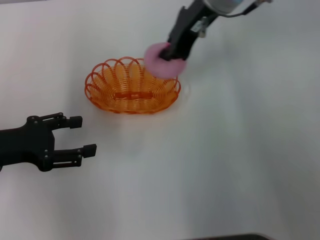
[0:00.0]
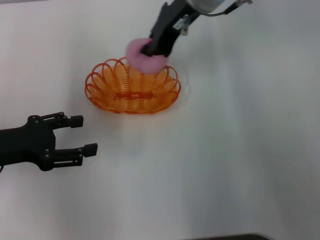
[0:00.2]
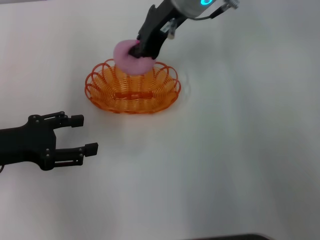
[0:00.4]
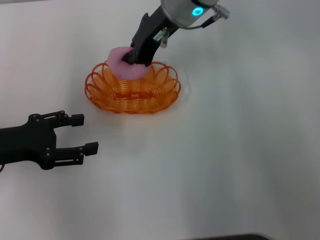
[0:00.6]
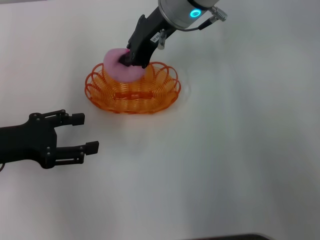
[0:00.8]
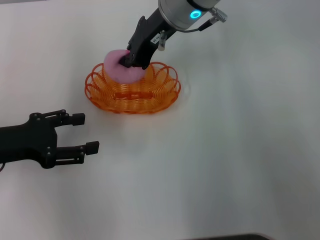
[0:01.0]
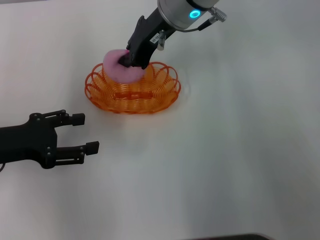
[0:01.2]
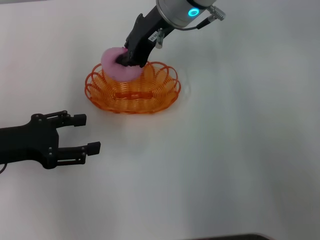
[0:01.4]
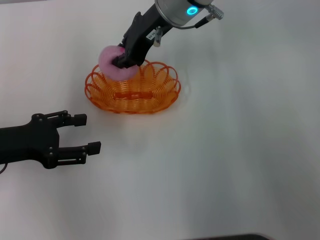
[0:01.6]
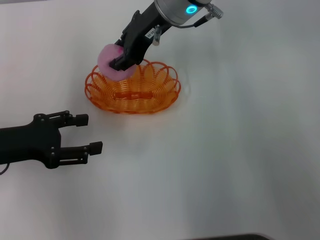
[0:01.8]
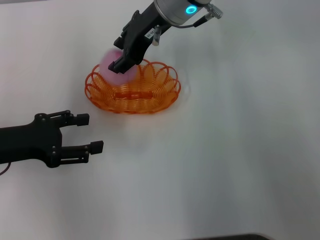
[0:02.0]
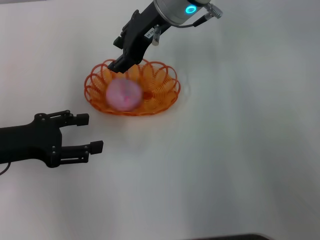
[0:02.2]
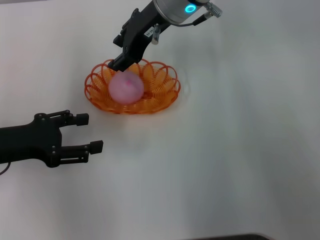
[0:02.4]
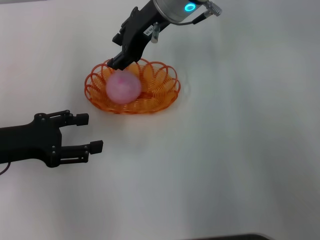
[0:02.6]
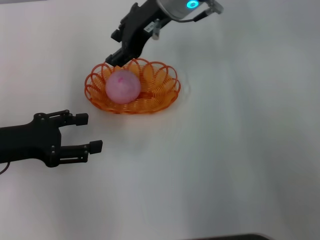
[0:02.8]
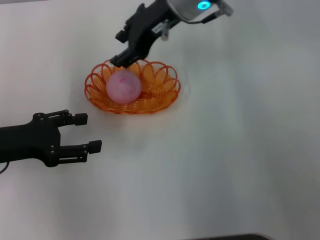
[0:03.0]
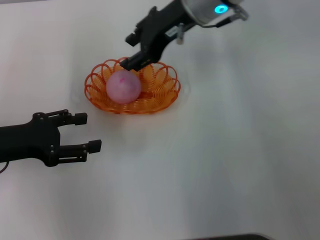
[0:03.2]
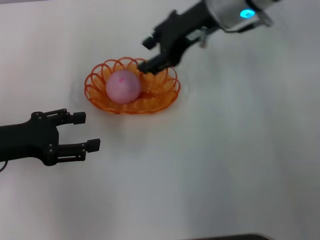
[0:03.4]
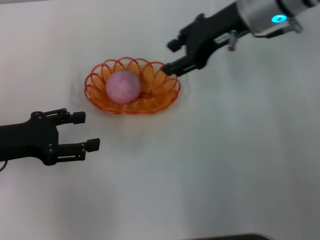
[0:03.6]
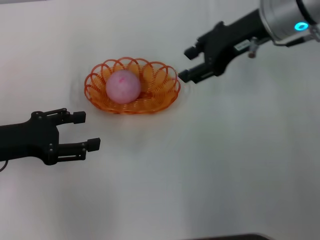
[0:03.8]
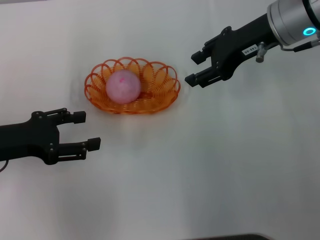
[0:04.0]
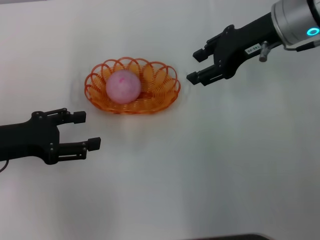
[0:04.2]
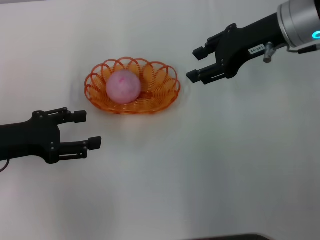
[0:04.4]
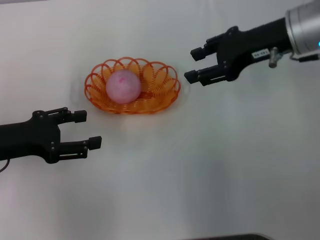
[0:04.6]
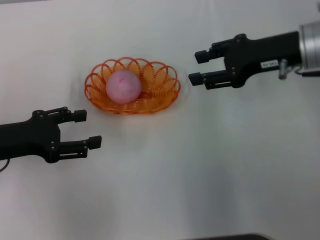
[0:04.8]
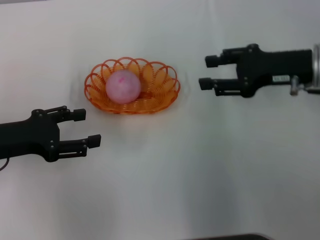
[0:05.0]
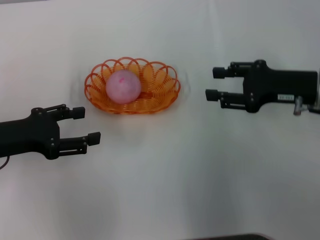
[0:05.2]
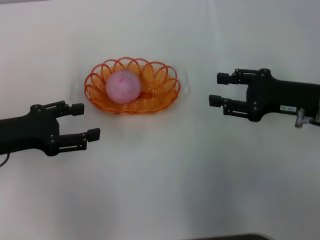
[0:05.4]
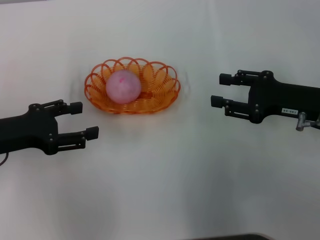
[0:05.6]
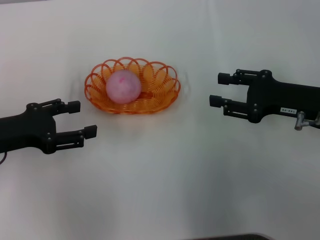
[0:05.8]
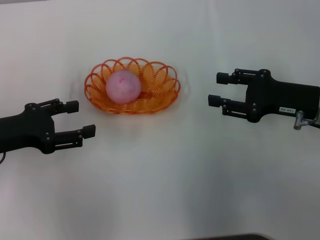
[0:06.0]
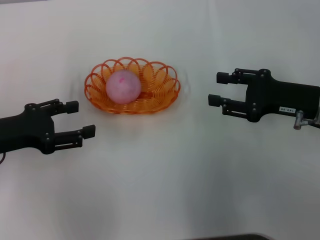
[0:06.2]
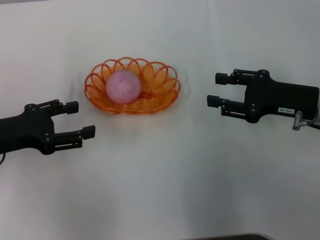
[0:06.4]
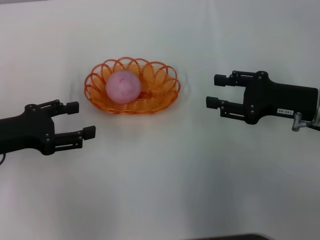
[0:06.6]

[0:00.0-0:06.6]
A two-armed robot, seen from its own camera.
Step, 0.0 to 2.2 s: Place the peach into the basket with the right gripper.
0.0 to 1.6 s: The right gripper changes place by some 5 cm.
1.6 to 3.2 s: The right gripper opens.
3.2 to 5.0 s: The right gripper moves to the right, backward and downward, approximately 20 cm.
5.0 to 6.6 s: The right gripper heads downward, covering roughly 5 cm.

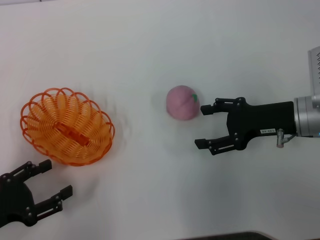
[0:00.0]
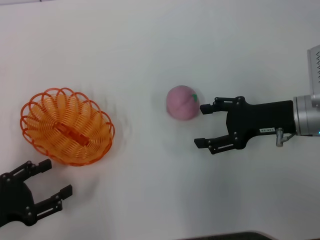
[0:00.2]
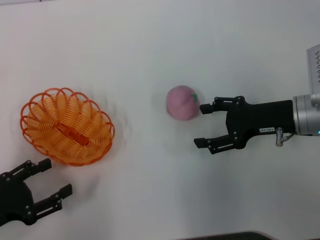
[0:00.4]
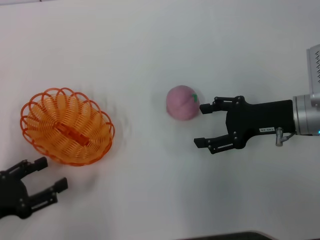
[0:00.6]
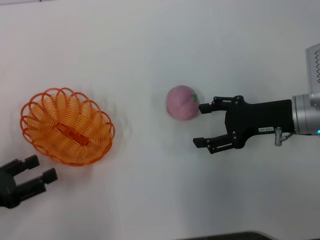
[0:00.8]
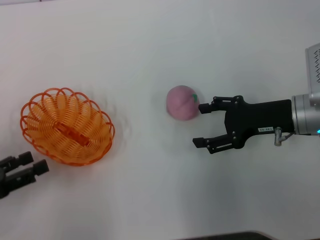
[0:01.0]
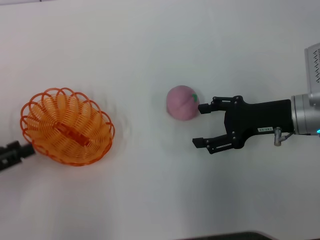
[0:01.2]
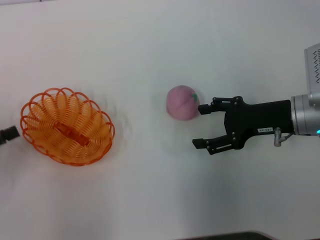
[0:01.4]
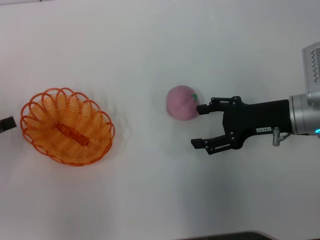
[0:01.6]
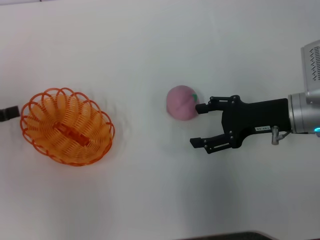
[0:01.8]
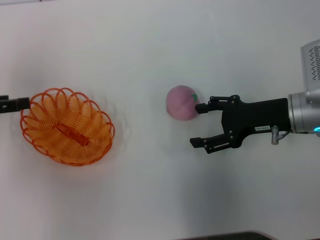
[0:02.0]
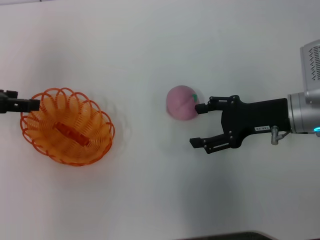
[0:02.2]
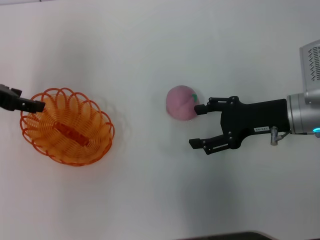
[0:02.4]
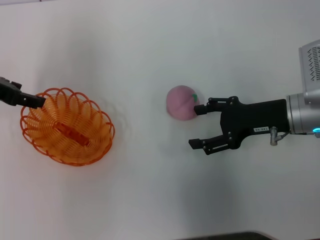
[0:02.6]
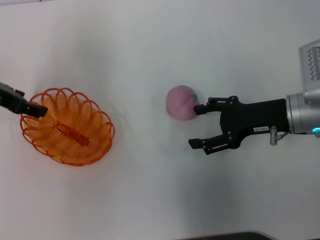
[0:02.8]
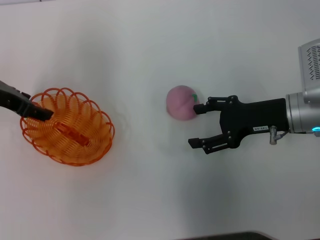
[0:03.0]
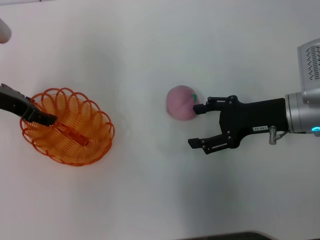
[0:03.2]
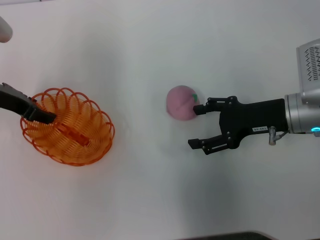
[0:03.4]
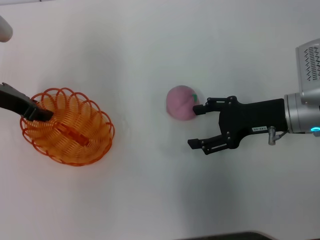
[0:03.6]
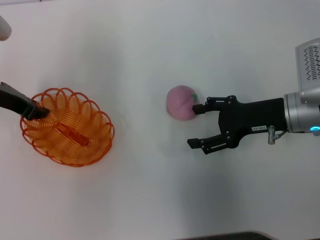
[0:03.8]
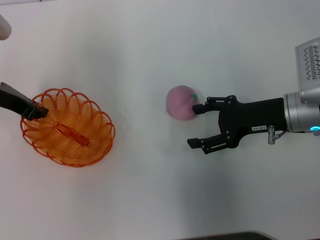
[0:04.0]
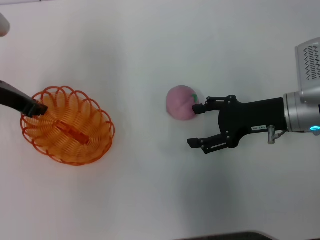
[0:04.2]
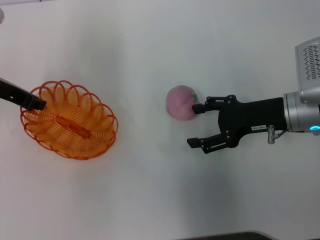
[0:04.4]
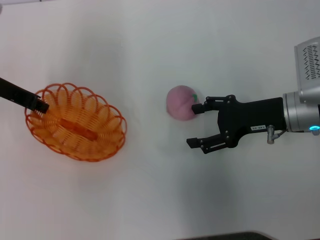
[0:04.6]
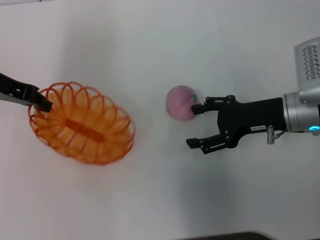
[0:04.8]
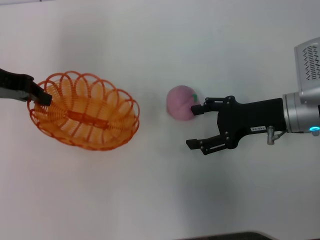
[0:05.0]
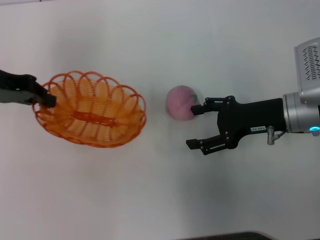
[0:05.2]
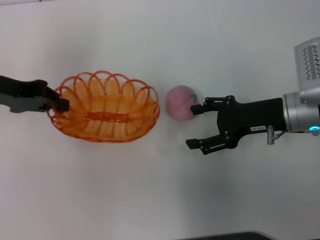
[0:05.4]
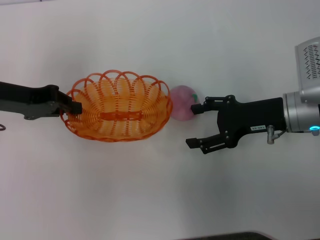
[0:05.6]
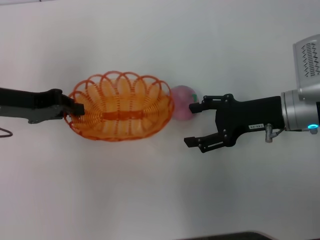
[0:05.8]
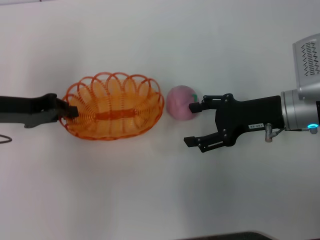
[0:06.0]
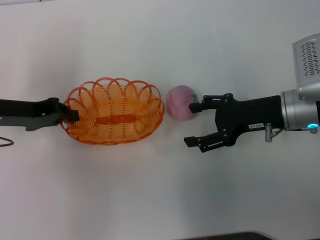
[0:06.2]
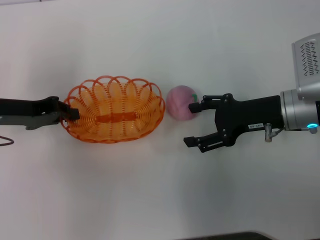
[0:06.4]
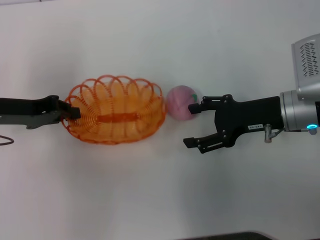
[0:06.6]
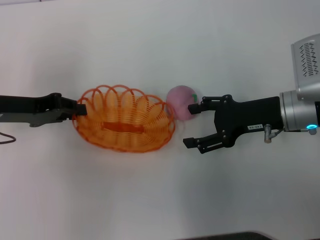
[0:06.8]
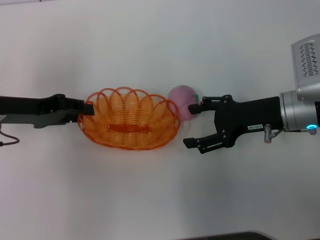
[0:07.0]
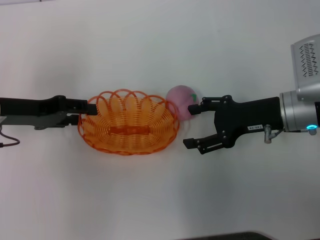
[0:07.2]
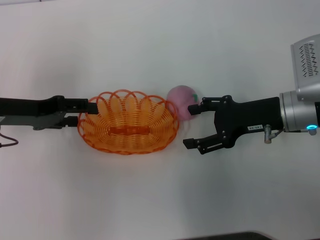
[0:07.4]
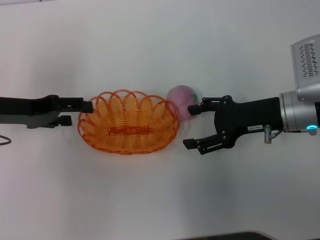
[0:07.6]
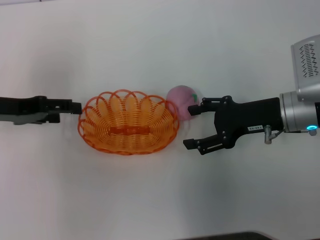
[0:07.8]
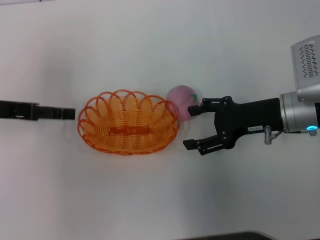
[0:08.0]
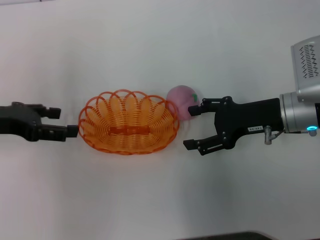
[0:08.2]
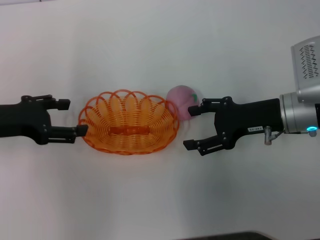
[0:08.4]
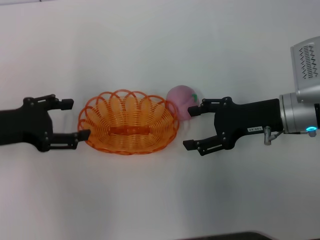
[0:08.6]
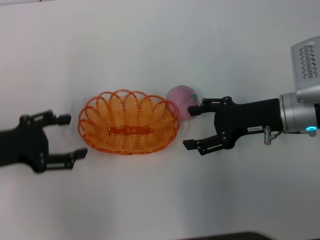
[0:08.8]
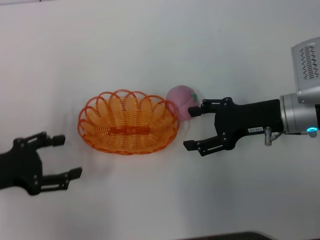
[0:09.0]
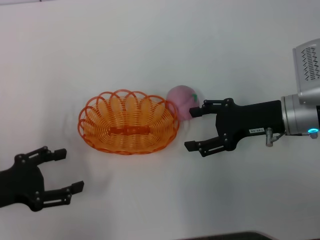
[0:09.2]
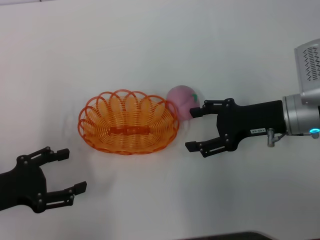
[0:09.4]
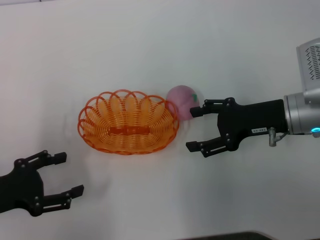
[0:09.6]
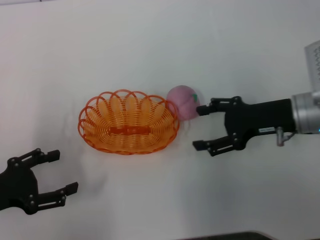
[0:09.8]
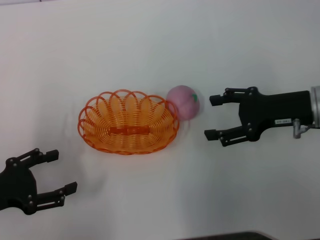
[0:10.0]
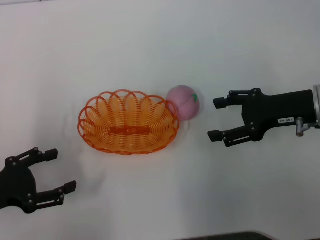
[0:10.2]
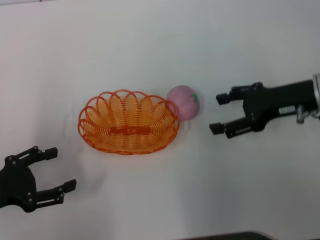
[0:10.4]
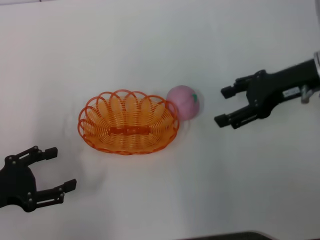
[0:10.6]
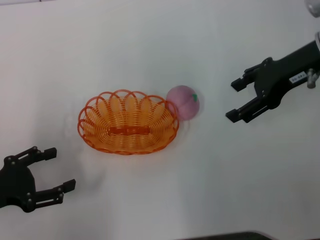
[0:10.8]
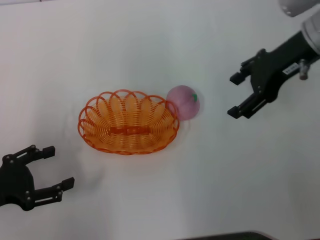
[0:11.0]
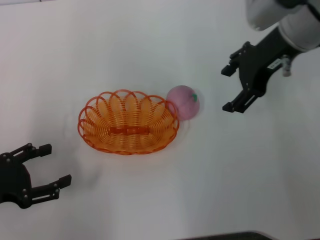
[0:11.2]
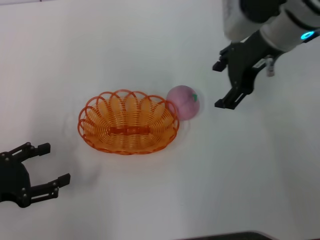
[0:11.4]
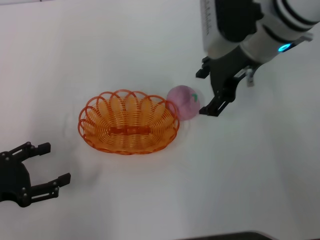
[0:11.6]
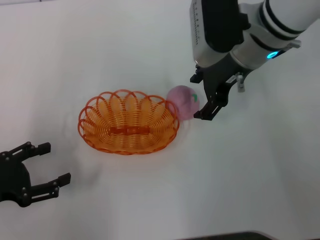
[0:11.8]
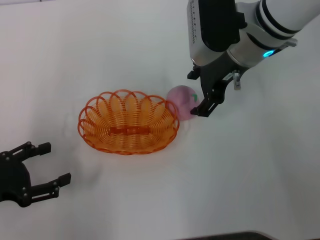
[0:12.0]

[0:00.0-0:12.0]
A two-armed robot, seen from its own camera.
Step, 0.0 to 4.6 s: Pick up the basket with the left gripper.
Step, 4.8 to 8.0 s: Place the basket in the center of view with the left gripper.
0.0 to 1.6 s: The left gripper moves forward, to the left and upward, some 10 cm.
1.6 to 3.0 s: The left gripper moves forward and to the right, roughly 15 cm.
3.0 to 4.4 s: The left gripper closes.
4.4 to 6.0 s: The left gripper changes place by about 5 cm.
6.0 to 7.6 s: The left gripper opens up.
7.6 to 9.0 s: The left gripper is displaced backward by approximately 10 cm.
9.0 to 10.4 s: The right gripper moves about 5 cm.
10.4 to 12.0 s: The right gripper moves to the left, forward and upward, about 15 cm.

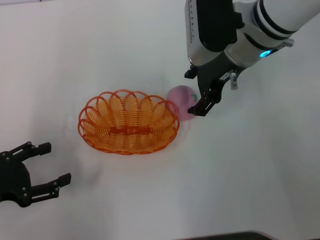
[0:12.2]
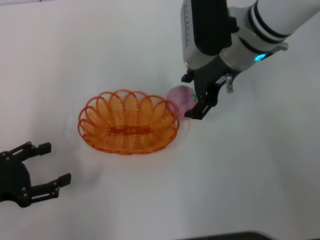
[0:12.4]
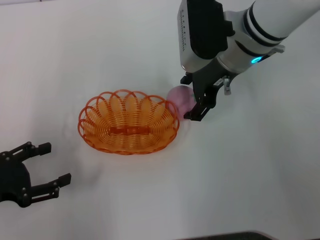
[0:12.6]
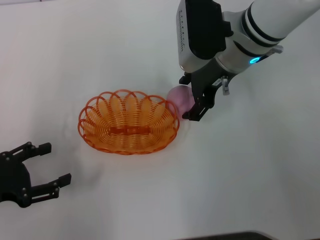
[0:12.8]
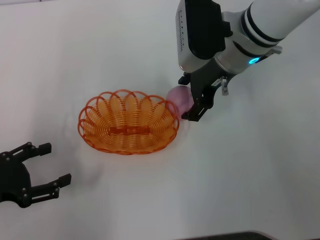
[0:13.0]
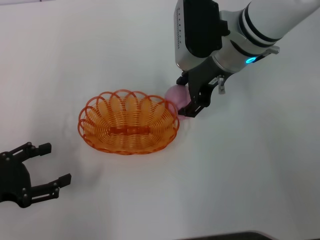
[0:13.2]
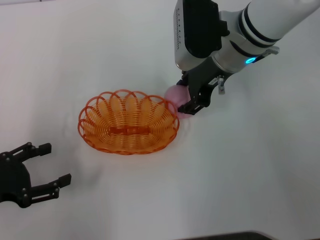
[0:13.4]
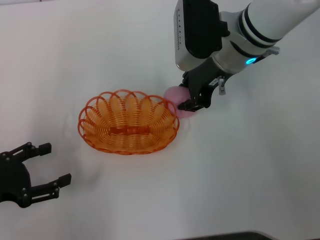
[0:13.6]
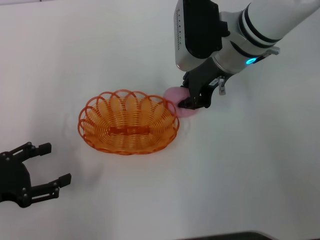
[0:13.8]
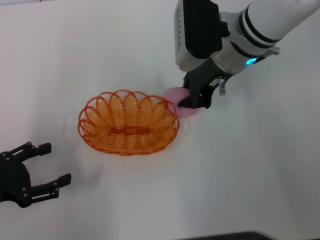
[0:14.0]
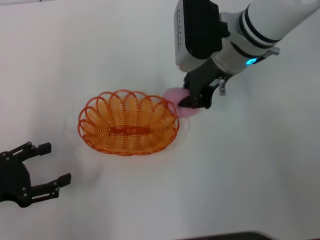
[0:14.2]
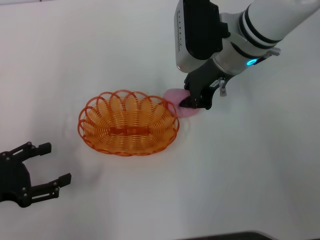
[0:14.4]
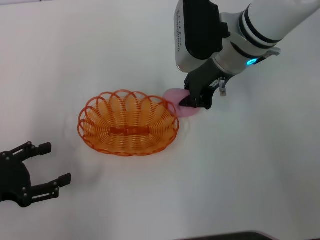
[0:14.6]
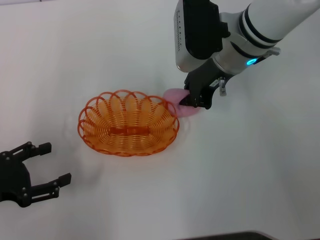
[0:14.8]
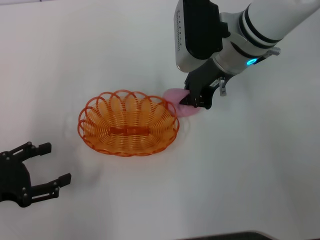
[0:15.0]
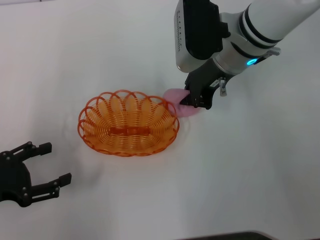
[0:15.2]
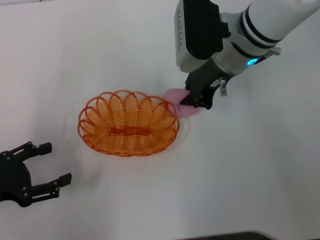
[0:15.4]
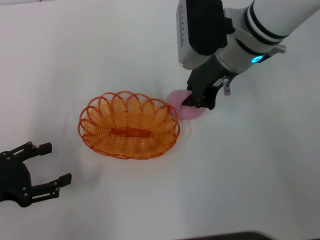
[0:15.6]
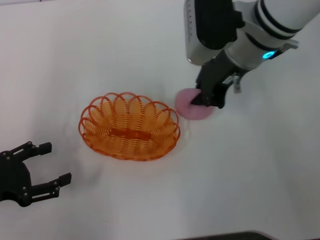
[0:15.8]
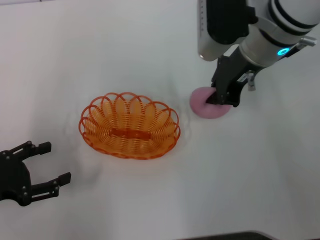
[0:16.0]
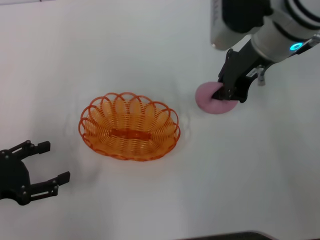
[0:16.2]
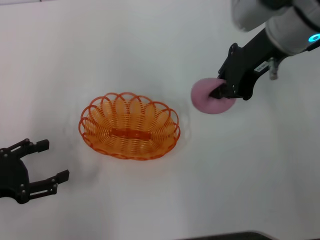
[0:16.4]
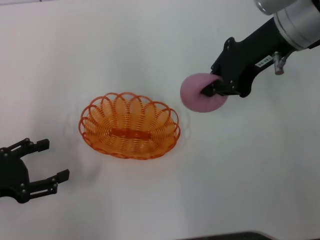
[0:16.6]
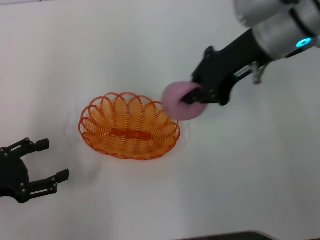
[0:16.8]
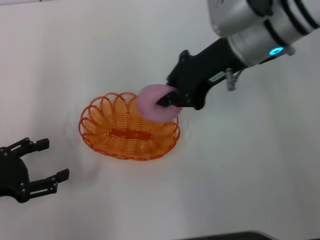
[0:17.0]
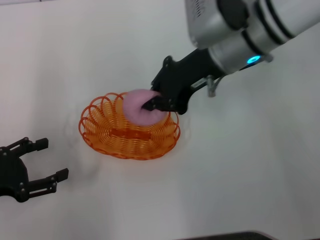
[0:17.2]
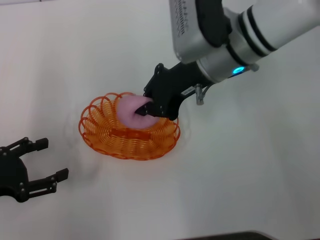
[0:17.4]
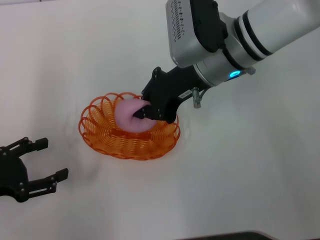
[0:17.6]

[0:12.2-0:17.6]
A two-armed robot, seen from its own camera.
Step, 12.2 to 16.2 s: Pick up the peach with the right gripper.
12.2 to 13.6 s: The grippers make only small movements.
13.6 to 15.0 s: The right gripper closes its fingers.
15.0 to 16.2 s: The right gripper moves roughly 5 cm.
16.2 to 17.6 s: The right gripper shifts some 5 cm to the left.
